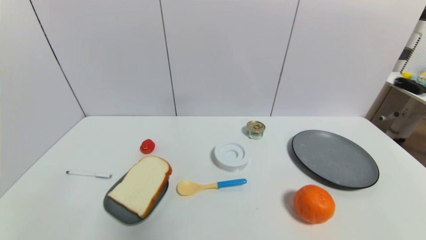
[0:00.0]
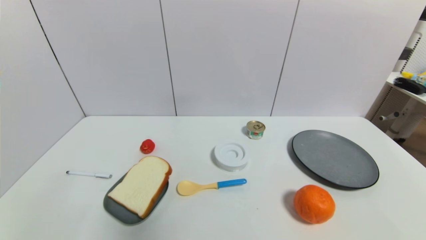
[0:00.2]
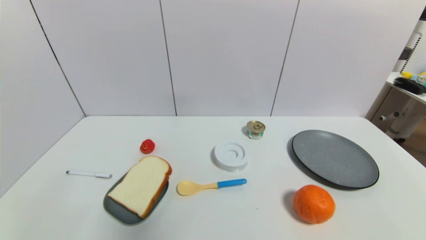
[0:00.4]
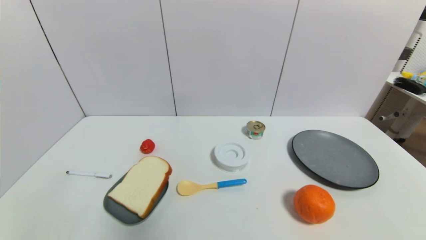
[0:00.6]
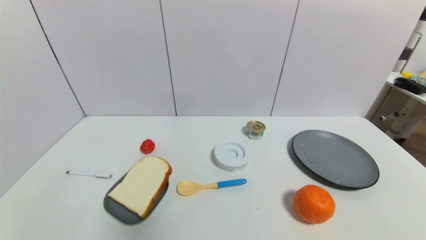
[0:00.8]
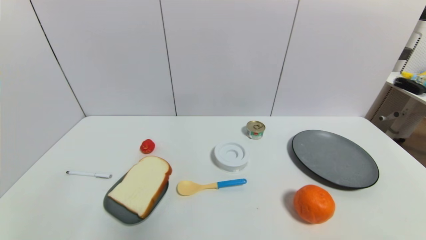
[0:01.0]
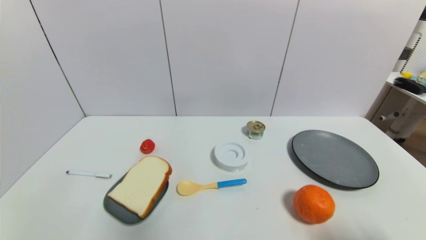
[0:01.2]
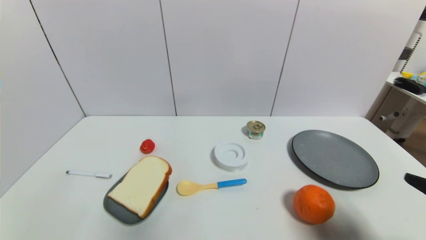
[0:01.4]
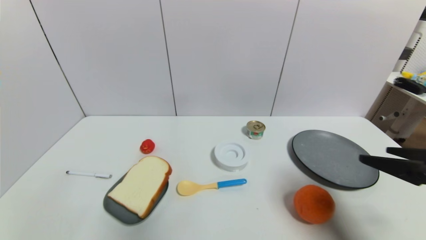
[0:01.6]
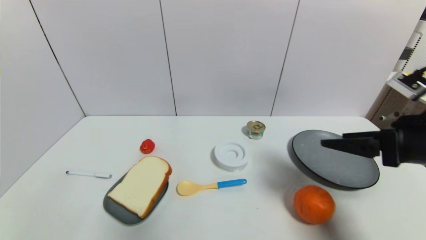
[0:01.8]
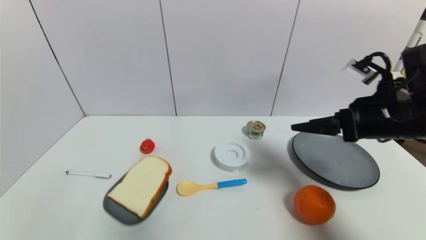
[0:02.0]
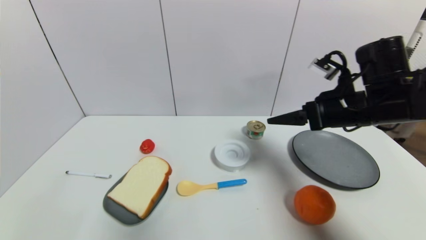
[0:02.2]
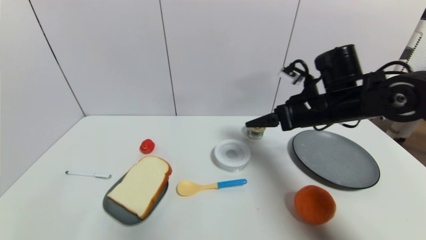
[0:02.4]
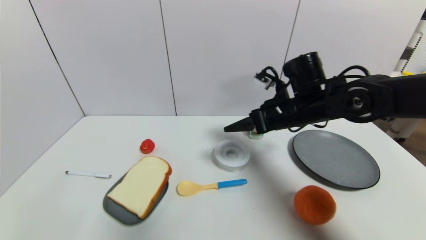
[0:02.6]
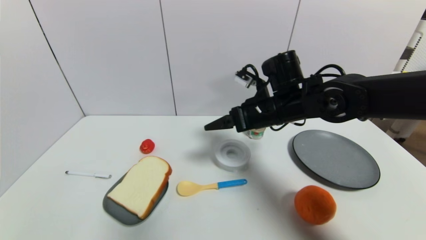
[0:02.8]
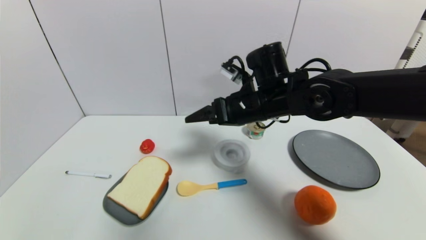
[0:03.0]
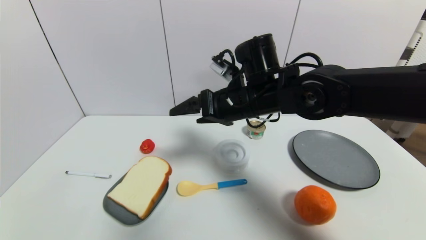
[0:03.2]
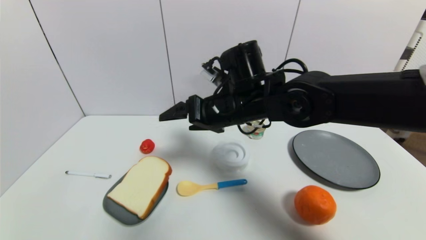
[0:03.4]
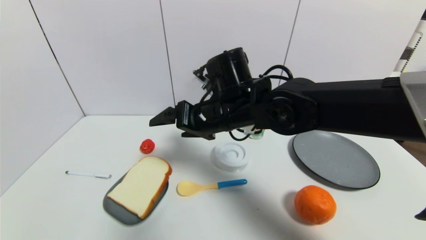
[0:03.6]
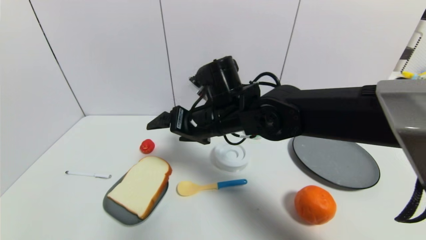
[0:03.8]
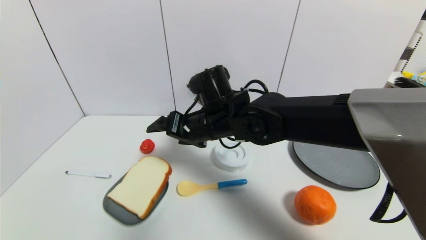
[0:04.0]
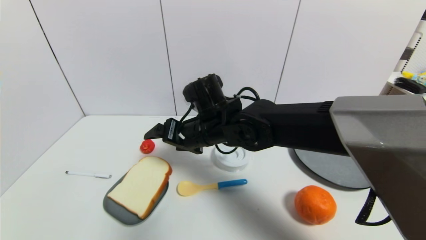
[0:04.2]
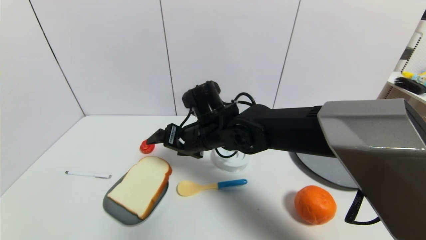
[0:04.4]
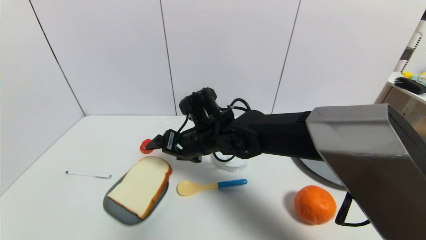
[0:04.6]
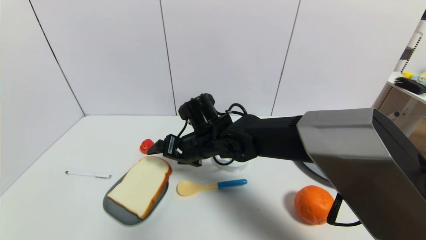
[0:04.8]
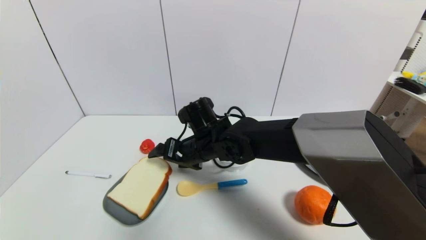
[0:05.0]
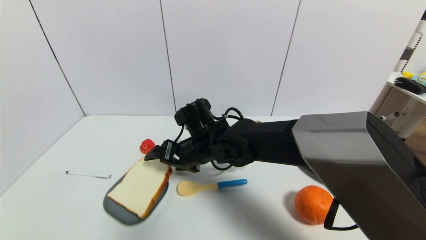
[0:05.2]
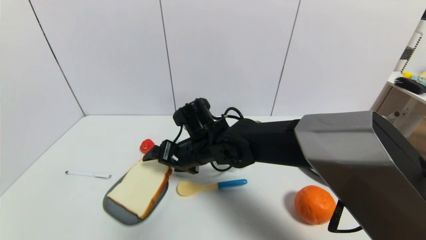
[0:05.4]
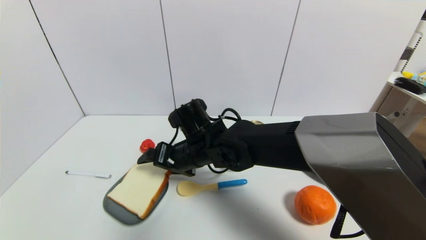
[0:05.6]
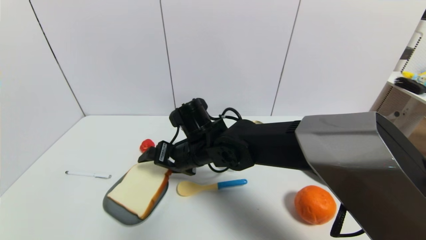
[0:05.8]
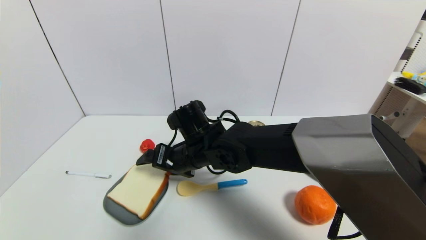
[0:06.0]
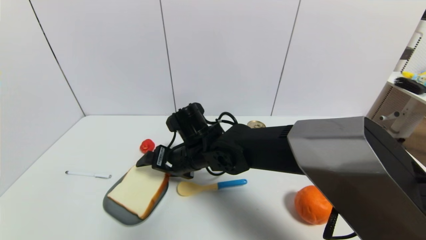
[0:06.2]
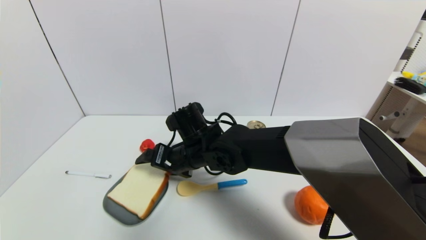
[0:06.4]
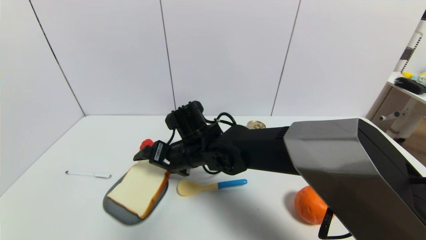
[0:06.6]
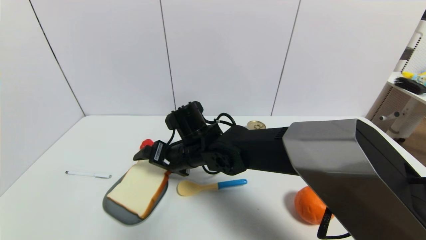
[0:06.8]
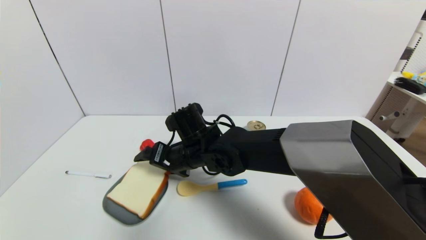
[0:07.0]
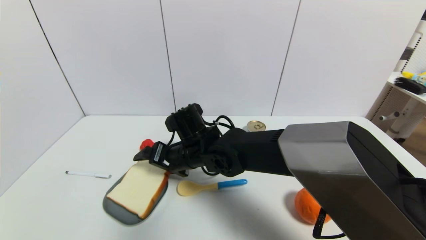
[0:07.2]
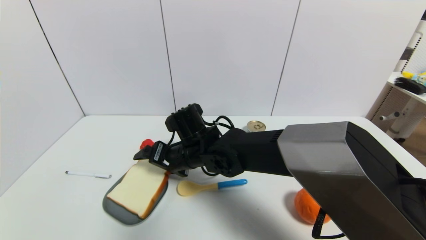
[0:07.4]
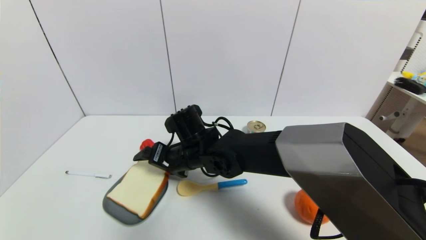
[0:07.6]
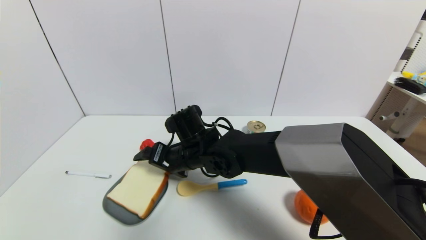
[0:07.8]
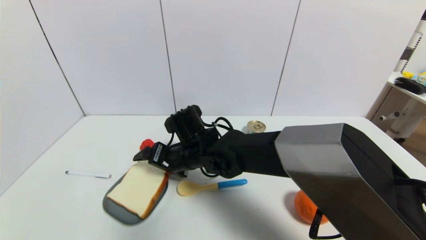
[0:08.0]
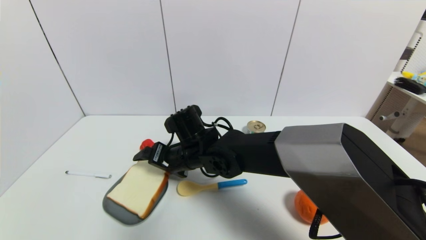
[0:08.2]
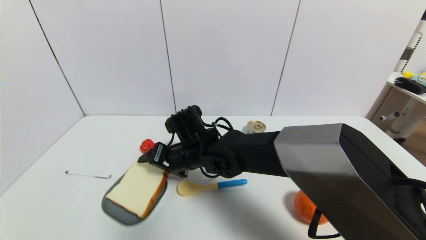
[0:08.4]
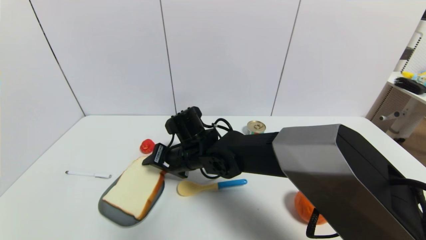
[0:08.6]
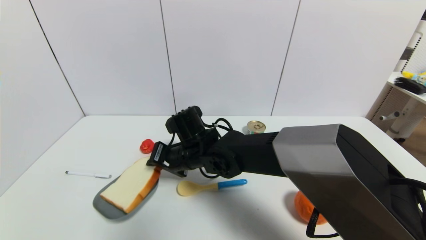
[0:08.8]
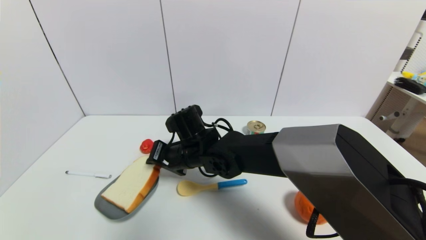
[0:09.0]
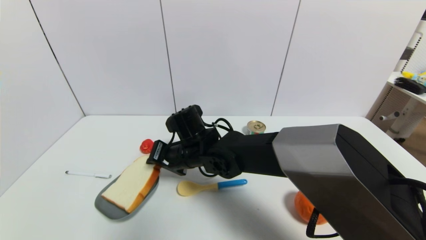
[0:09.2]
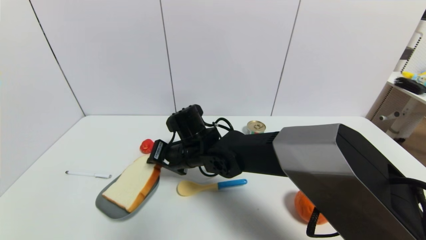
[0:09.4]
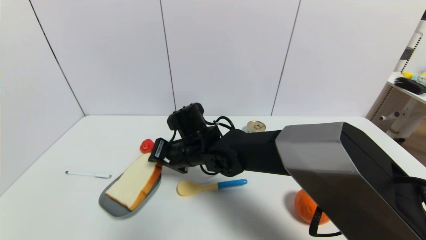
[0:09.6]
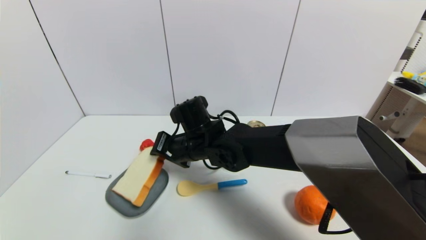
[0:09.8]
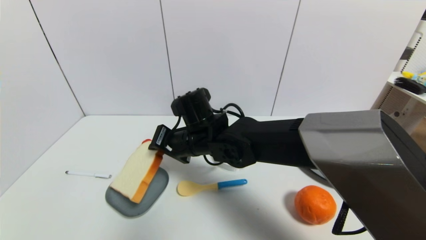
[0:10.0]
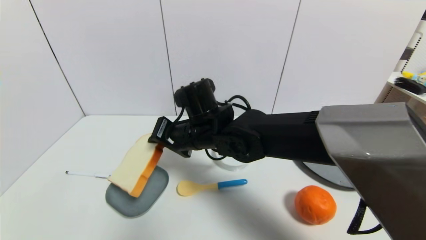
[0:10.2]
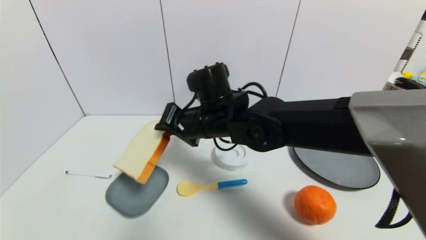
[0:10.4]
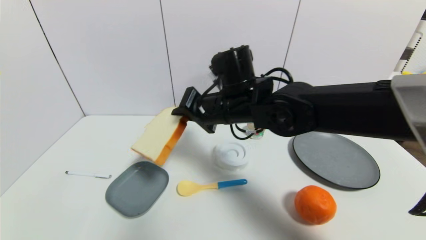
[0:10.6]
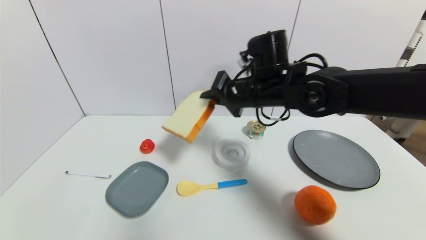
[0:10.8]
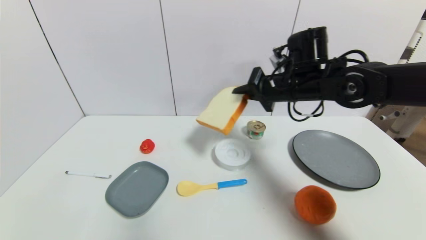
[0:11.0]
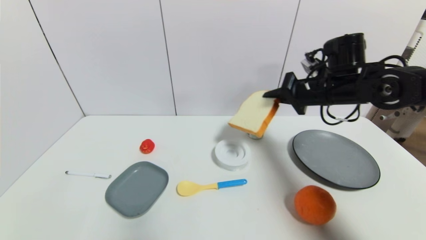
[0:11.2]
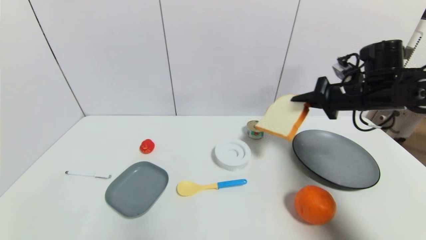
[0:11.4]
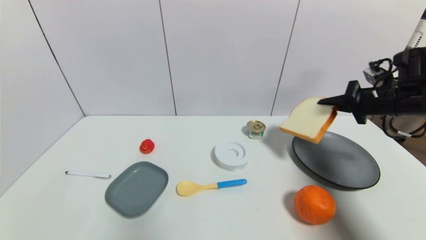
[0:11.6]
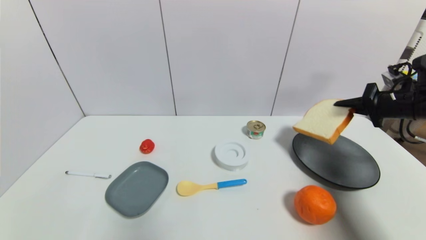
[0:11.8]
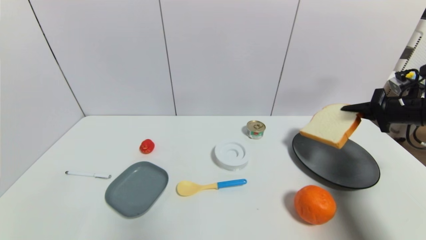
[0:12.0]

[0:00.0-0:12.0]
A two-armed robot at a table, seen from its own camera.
Task of the whole recording: use a gripper to pick the target object and place on the gray plate.
Step, 0:00.0 to 0:09.0: Grasp the bread slice with the right gripper.
0:00.0 to 0:01.6: The right gripper goes about 25 cm forward and upward.
0:01.6 to 0:03.0: The right gripper shifts approximately 30 cm to the left and forward.
0:03.0 to 0:04.4: The right gripper heads to the left and downward, covering about 10 cm.
0:06.0 to 0:07.6: There are only small adjustments of the grippers.
0:07.6 to 0:09.0: The right gripper closes up.
0:09.0 to 0:10.4: The right gripper heads upward and to the right, covering about 10 cm.
0:10.4 to 0:12.0: The right gripper is displaced to the right by about 40 cm.

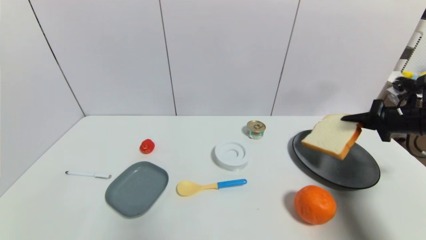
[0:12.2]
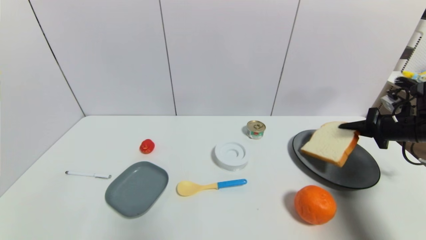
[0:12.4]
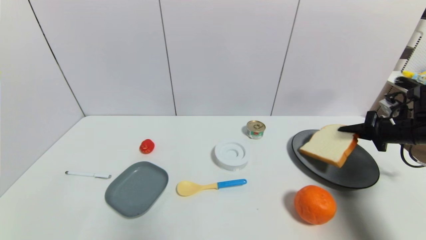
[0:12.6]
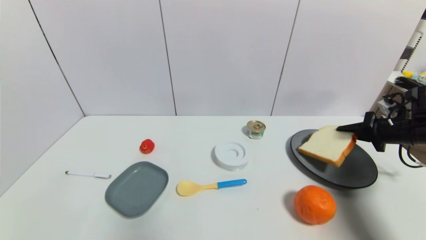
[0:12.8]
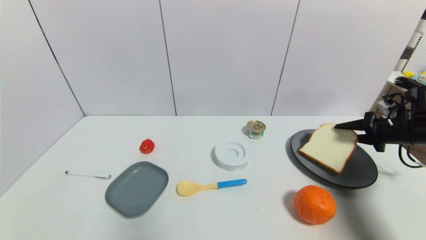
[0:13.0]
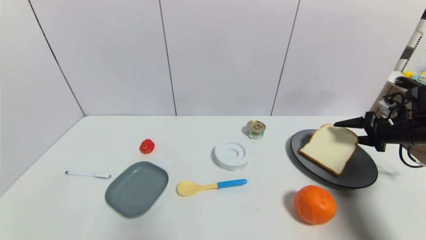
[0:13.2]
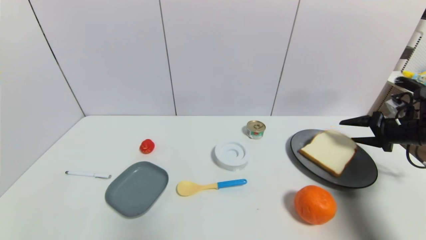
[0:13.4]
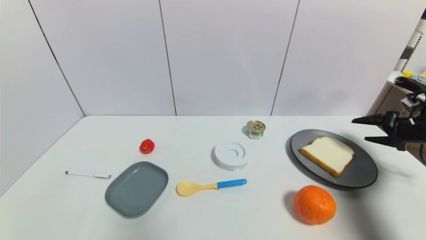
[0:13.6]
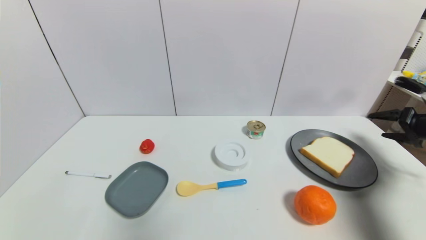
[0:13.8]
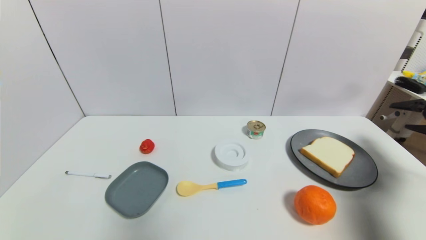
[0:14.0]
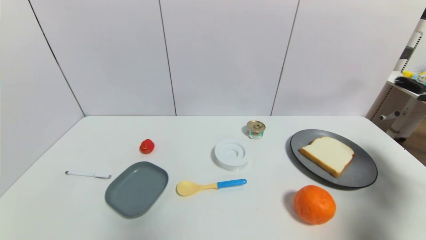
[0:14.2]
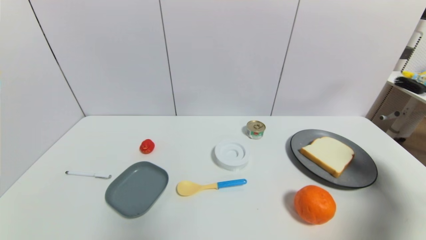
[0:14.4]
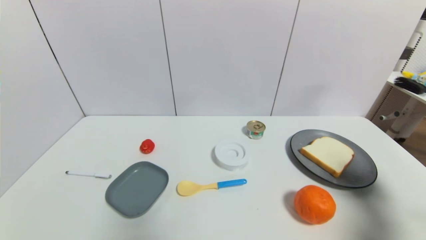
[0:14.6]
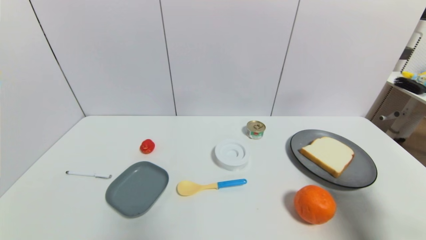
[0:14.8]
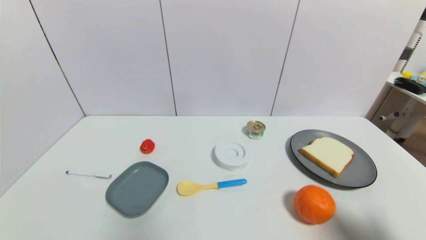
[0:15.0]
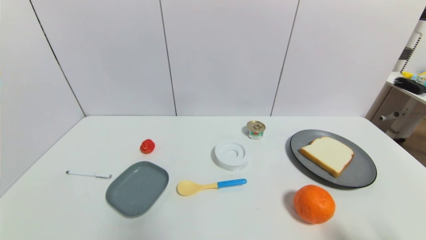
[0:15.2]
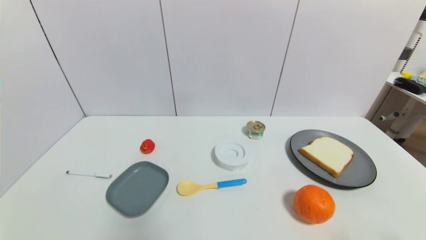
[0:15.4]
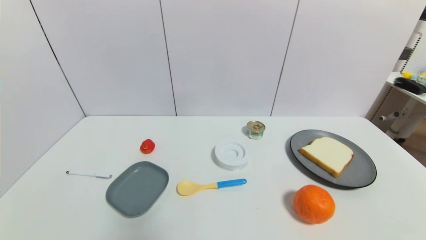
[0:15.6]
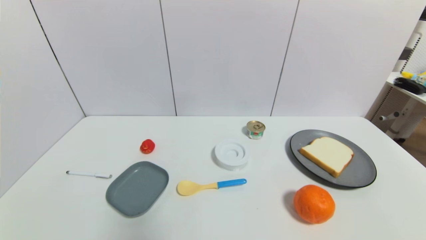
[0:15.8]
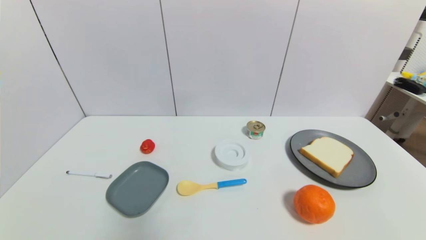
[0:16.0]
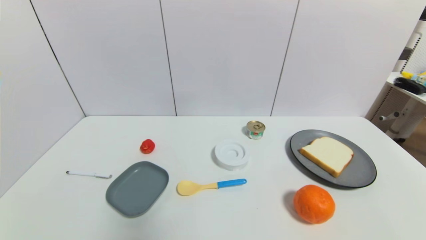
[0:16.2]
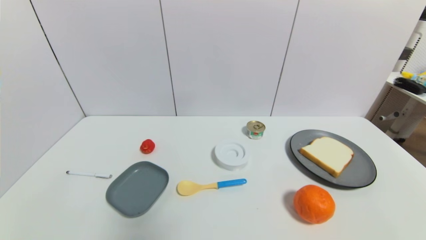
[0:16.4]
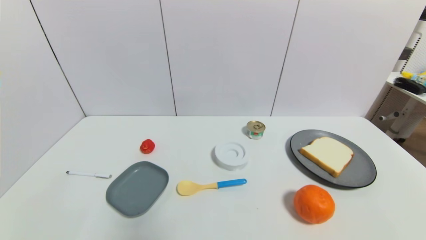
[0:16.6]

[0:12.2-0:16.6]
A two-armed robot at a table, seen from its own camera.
Task of the whole recording: use a gripper to pick the target object and place on the gray plate.
0:12.2 to 0:13.6: The right gripper travels to the right by approximately 5 cm, and opens up.
0:13.6 to 0:15.2: The right gripper goes approximately 35 cm backward and to the left.
